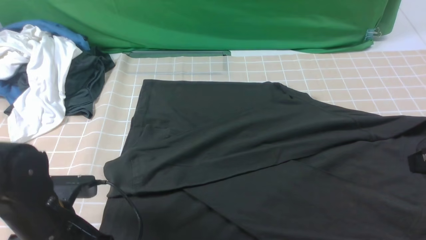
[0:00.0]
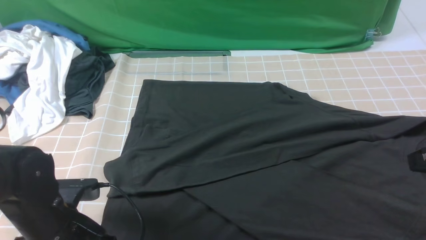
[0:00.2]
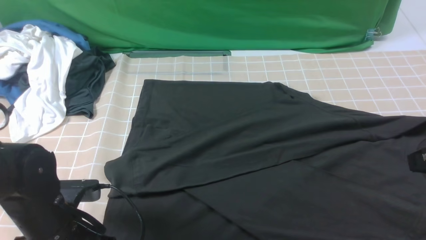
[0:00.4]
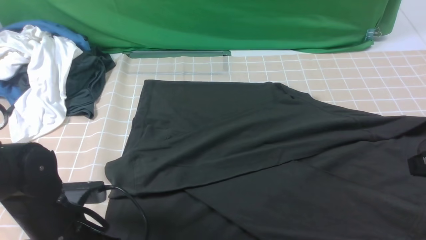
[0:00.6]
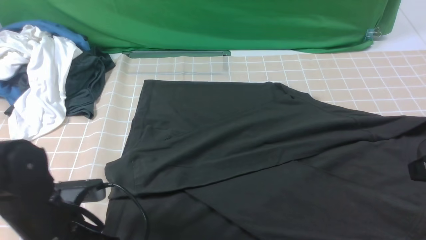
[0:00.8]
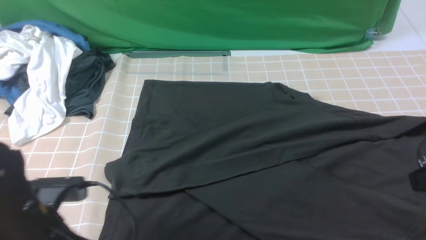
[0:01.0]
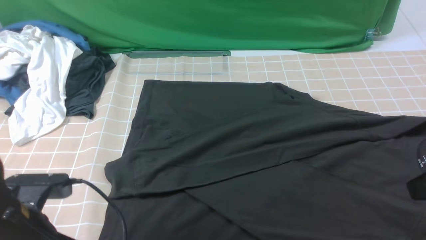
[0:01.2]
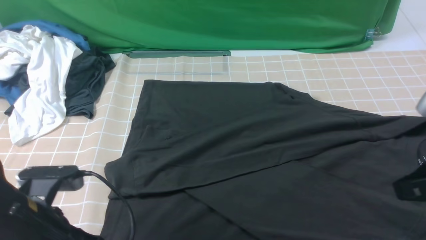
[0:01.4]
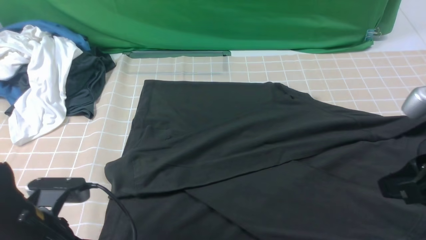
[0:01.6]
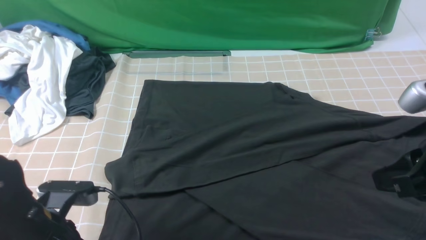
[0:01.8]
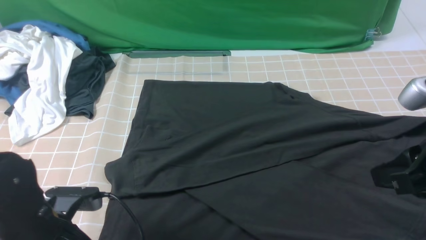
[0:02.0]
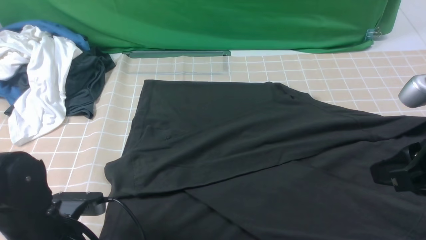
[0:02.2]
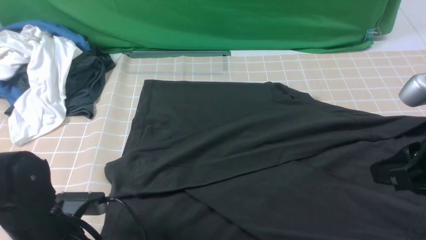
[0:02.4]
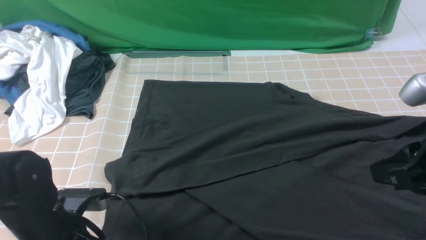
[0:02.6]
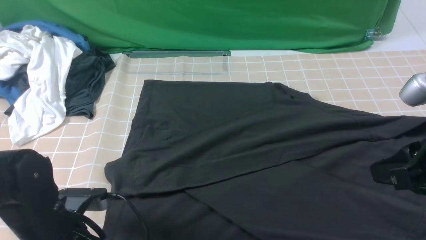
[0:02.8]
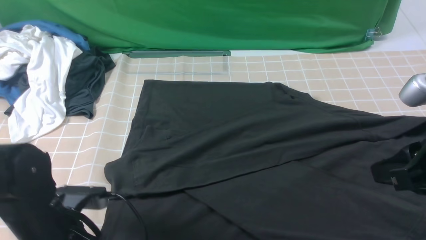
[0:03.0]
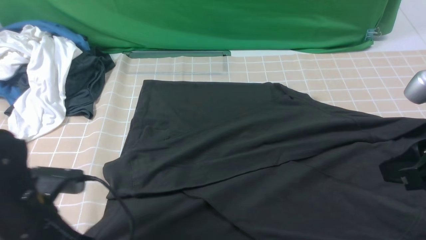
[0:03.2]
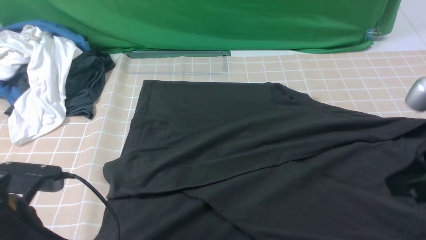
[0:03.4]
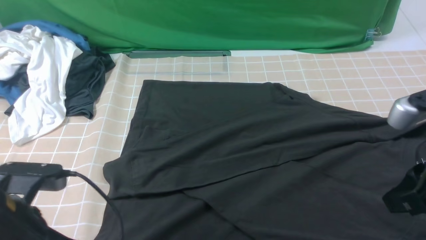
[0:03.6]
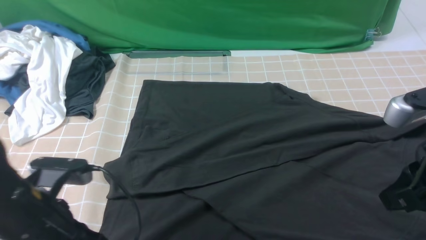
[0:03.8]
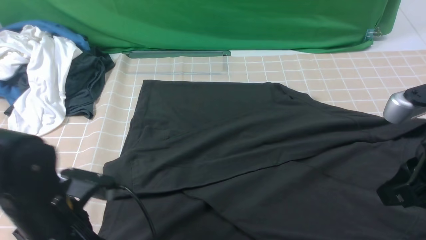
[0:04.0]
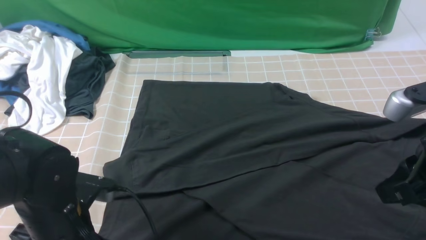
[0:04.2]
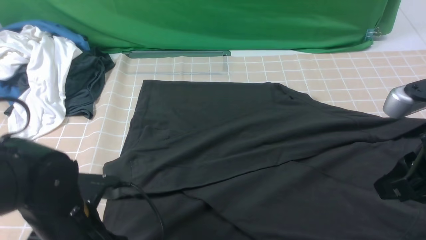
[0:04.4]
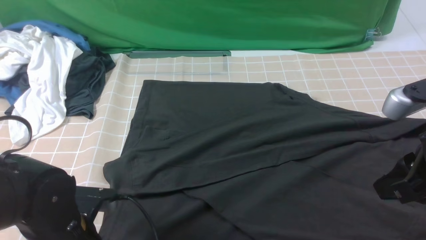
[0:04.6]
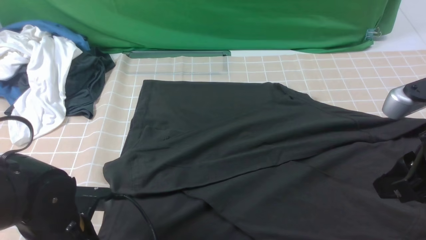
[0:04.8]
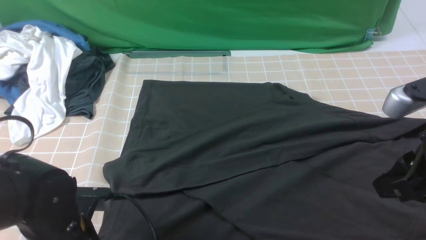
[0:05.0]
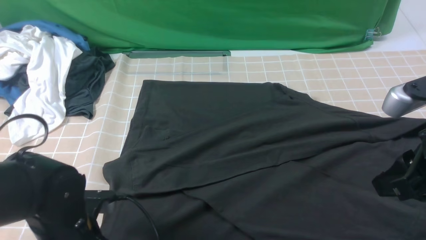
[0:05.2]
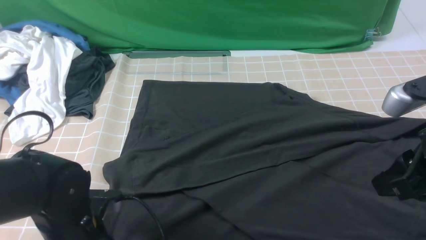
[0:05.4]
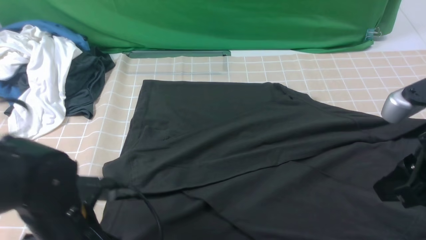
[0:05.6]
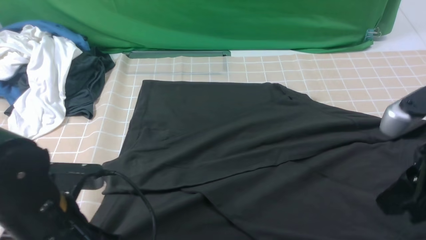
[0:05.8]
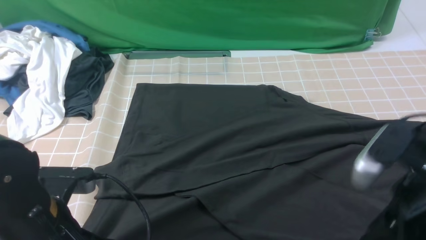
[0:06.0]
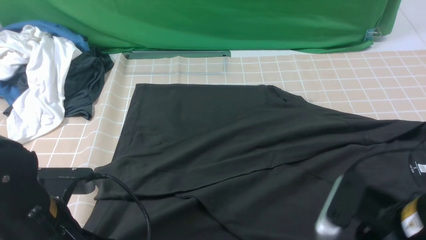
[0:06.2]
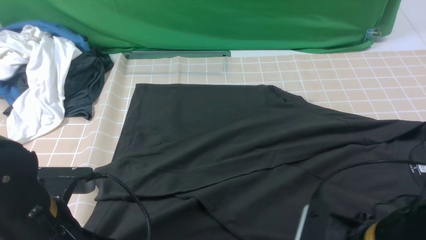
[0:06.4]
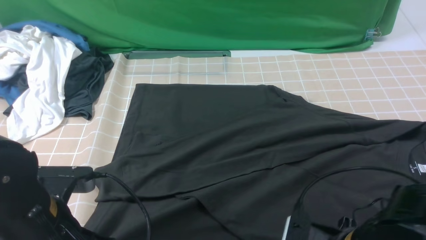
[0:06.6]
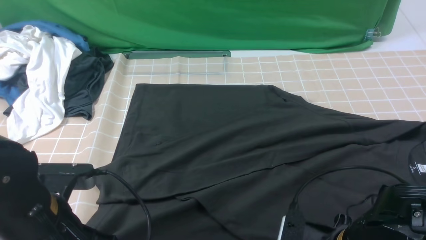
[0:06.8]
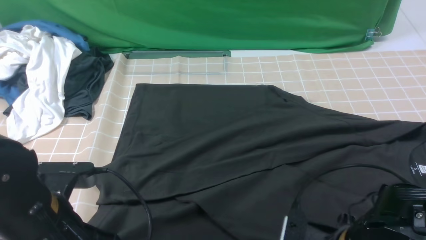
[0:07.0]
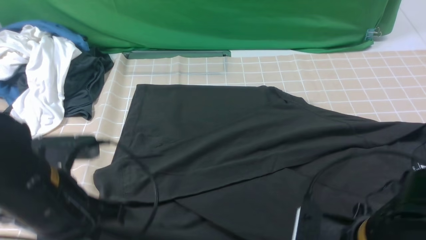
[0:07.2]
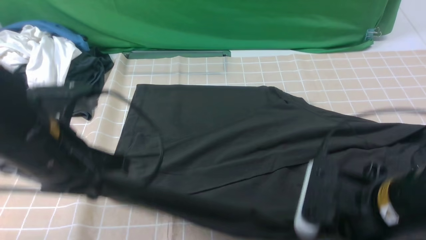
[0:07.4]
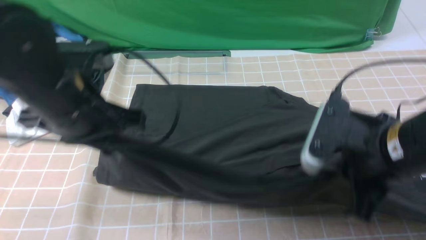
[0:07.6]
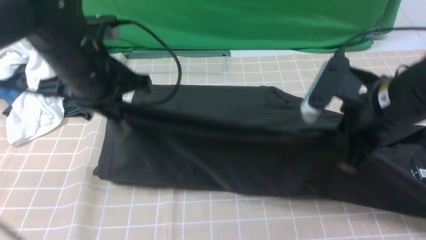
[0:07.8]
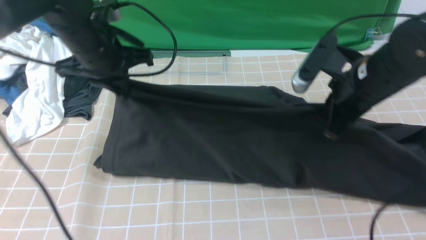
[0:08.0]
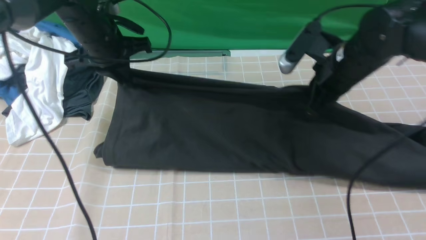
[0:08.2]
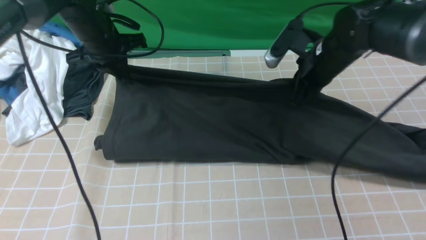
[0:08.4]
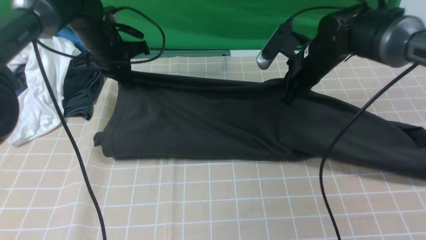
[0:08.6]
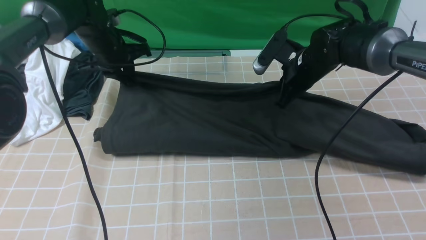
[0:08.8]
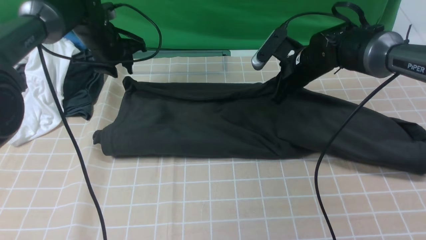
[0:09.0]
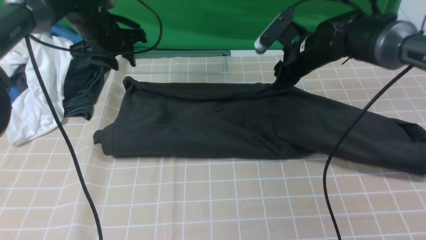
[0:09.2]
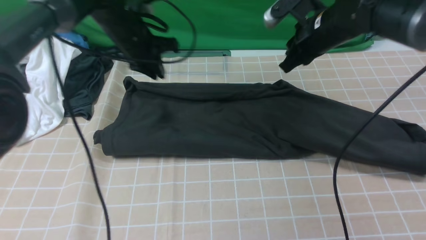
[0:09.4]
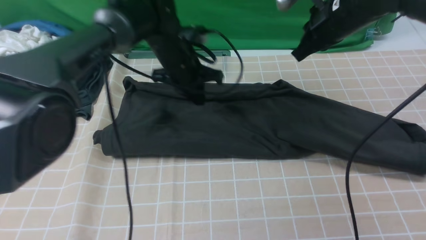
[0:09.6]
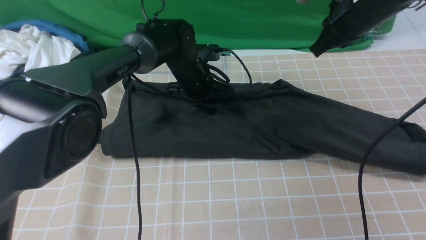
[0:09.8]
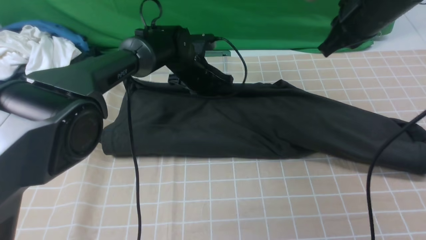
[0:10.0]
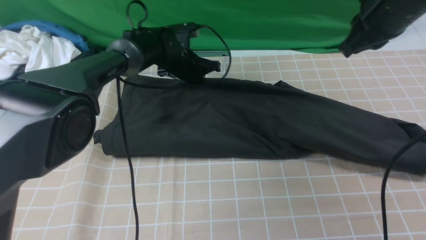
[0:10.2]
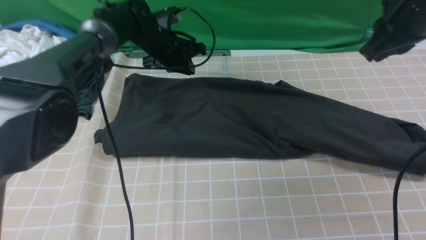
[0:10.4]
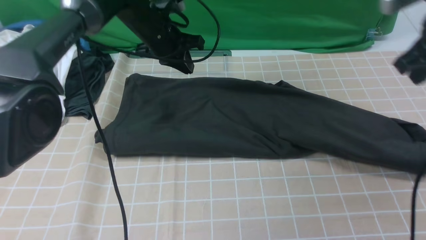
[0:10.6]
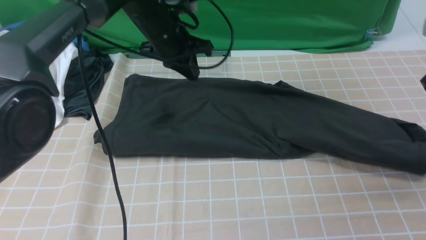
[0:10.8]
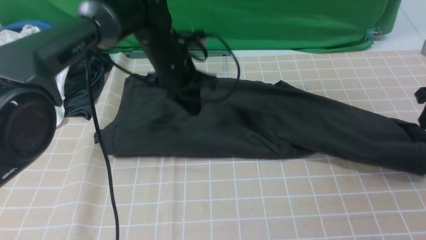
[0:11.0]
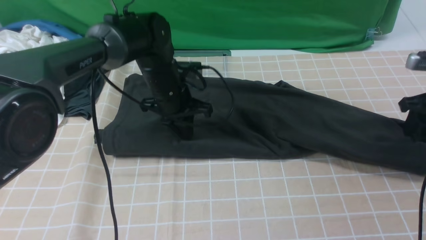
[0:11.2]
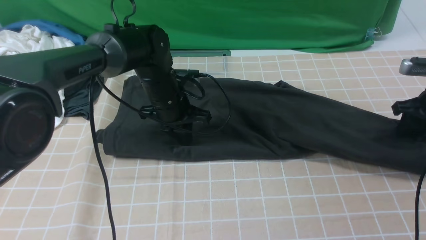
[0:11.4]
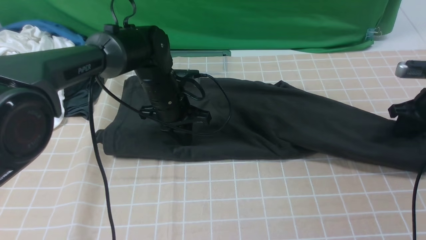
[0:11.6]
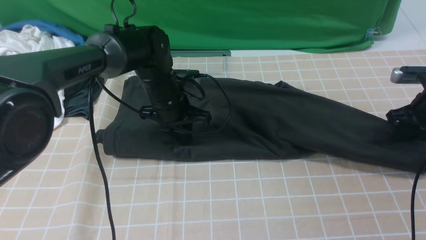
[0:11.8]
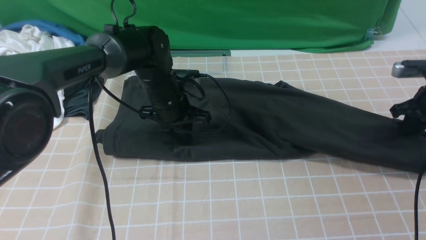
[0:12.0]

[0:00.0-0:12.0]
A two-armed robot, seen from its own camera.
Step, 0:00.0 to 0:06.8: use both arms simultaneously to clamp the lower edge of the clothing fabric.
Step, 0:07.2 to 0:10.2: use both arms to drag the lower edge of the fabric forward and fold it over the upper edge.
0:00.0 to 0:01.6: The left gripper closes and opens again.
0:01.6 to 0:03.0: The left gripper closes.
0:03.0 to 0:04.4: The left gripper opens up.
0:04.4 to 0:06.0: The left gripper goes about 5 cm upward, and closes its fingers, while the right gripper ends up approximately 5 cm from where it was.
0:06.0 to 0:07.6: The right gripper shifts roughly 5 cm forward, moves about 10 cm downward and comes back, and closes, while the left gripper is displaced forward and upward by roughly 15 cm.
0:07.6 to 0:09.0: Both grippers travel together forward, some 25 cm. The left gripper opens.
0:09.0 to 0:10.4: The right gripper goes roughly 20 cm upward, backward and to the right, and closes, while the left gripper goes about 10 cm to the right, and closes.
0:10.4 to 0:12.0: The right gripper goes some 20 cm downward and to the right, and opens, then closes again, while the left gripper goes roughly 10 cm backward.

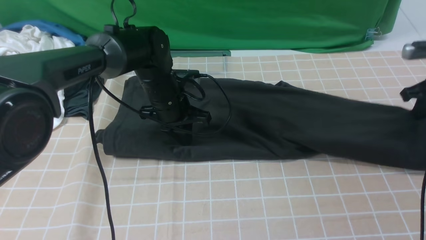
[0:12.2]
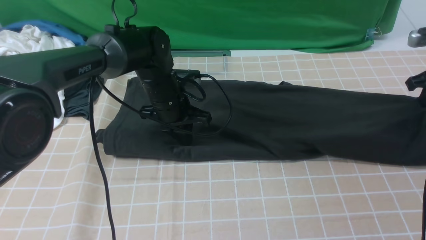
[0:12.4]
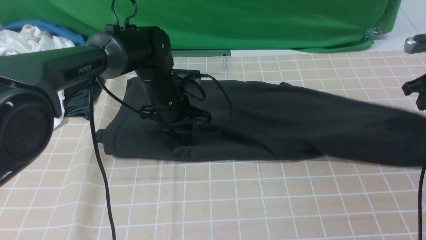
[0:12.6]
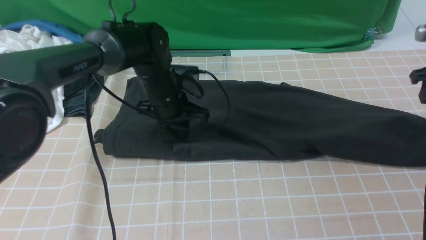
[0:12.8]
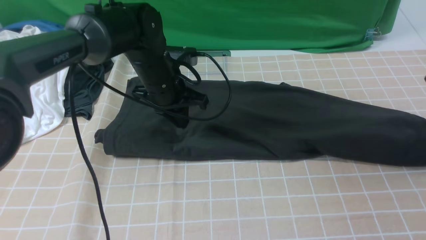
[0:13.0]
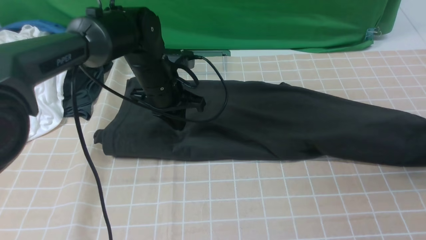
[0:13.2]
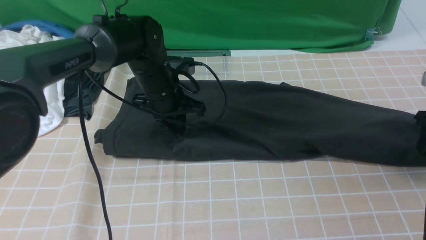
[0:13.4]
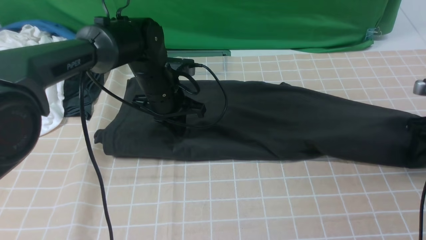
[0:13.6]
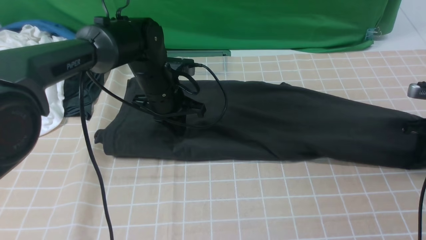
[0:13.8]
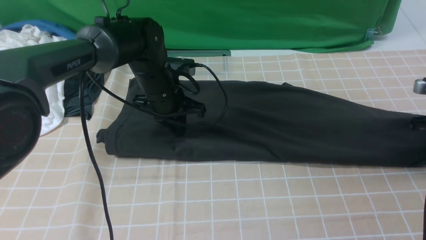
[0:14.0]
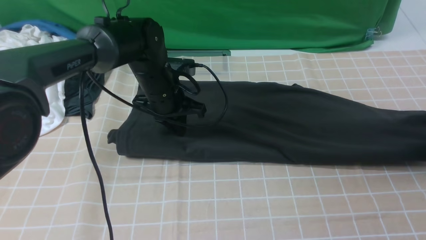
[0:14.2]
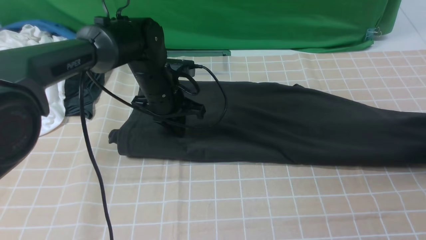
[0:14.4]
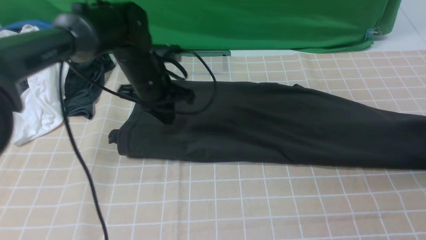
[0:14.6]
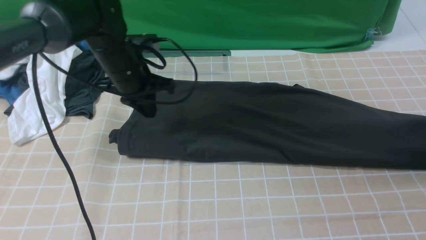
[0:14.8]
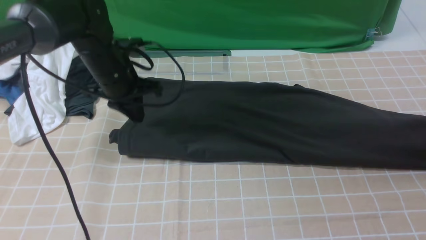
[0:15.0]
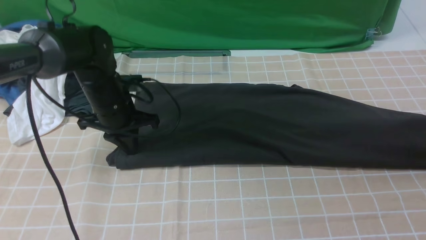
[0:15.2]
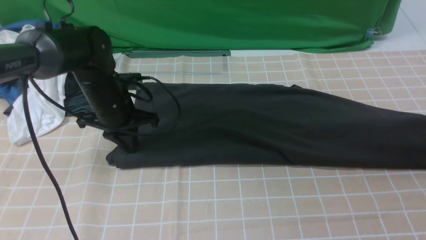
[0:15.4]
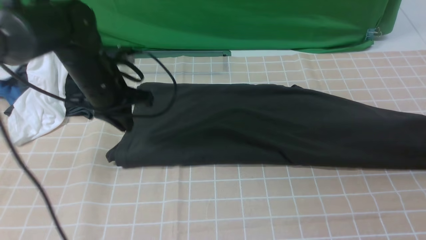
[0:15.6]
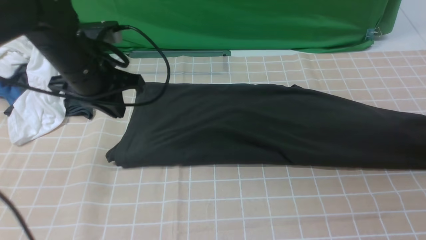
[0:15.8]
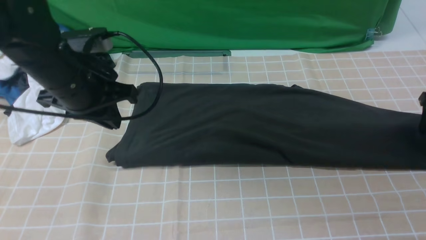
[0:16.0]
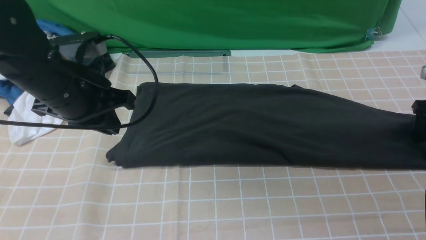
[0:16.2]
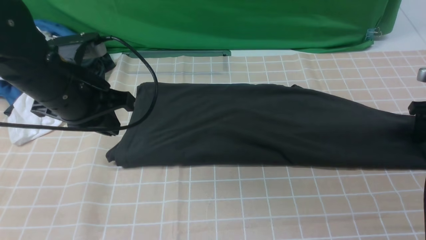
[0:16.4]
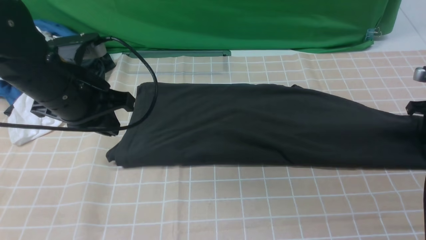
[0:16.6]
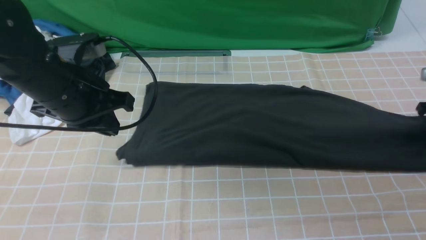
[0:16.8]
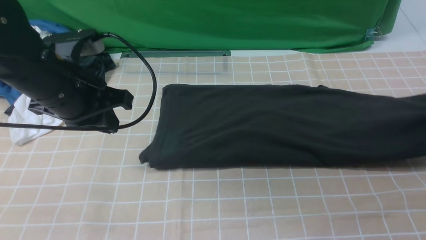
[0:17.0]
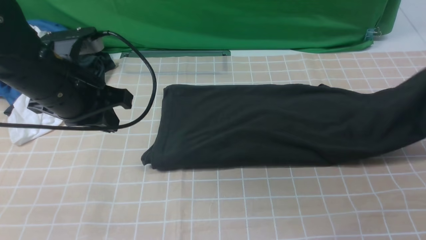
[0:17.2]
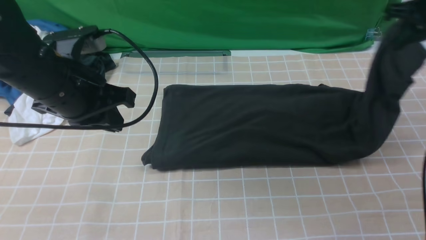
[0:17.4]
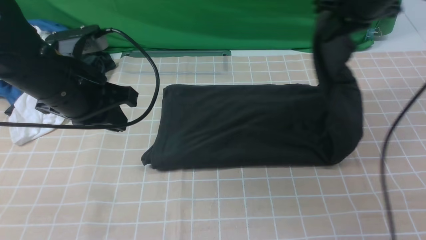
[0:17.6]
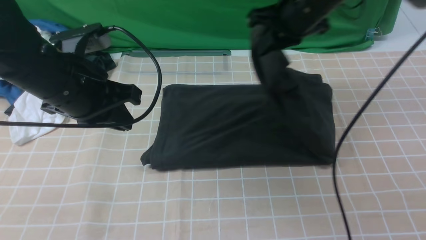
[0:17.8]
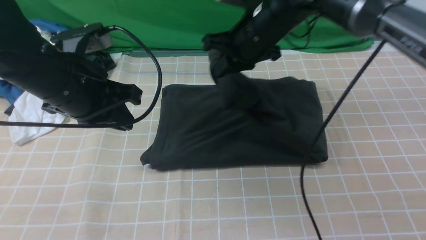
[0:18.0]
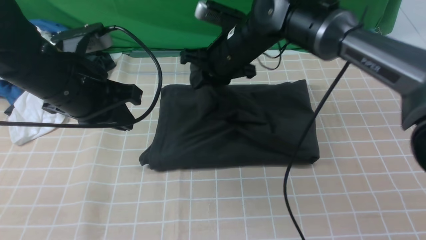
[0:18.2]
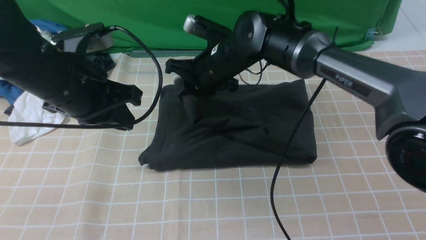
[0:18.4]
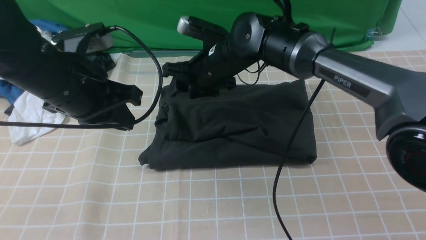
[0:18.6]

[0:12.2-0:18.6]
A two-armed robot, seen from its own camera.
Step, 0:12.2 to 0:16.6: use the right arm to clamp the right edge of the fabric.
0:12.2 to 0:13.8: The right gripper ends up roughly 5 cm from where it was, and opens its fingers.
0:13.8 to 0:15.4: The right gripper moves upward, some 10 cm. The left gripper moves to the left, about 10 cm.
0:15.4 to 0:17.0: The left gripper moves upward and backward, approximately 15 cm; the right gripper travels downward and back again, about 10 cm each way, and closes its fingers.
0:17.0 to 0:18.6: The right gripper heads to the left, covering approximately 40 cm, and opens up.
